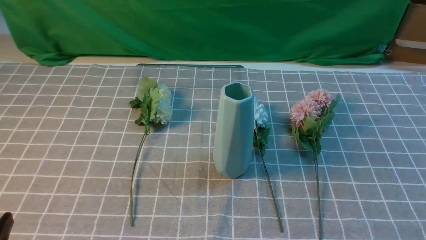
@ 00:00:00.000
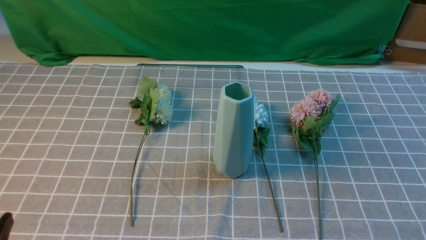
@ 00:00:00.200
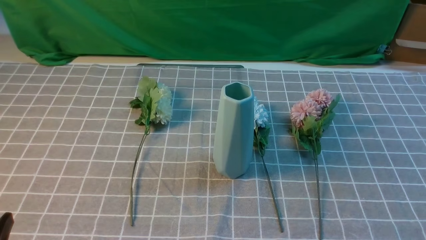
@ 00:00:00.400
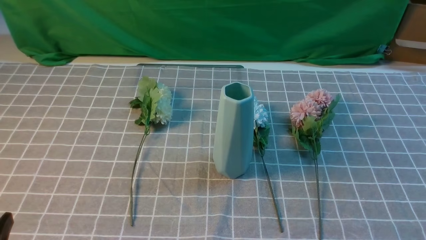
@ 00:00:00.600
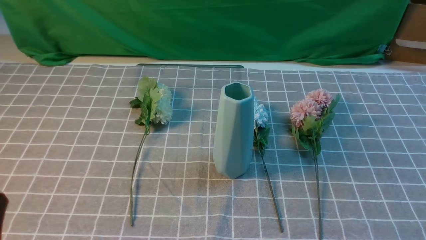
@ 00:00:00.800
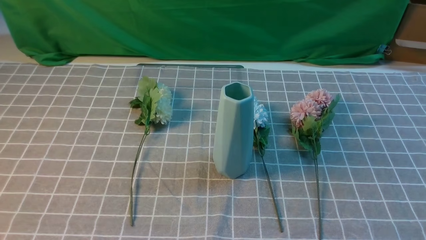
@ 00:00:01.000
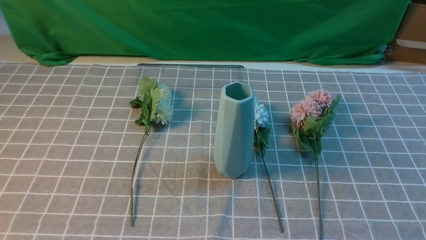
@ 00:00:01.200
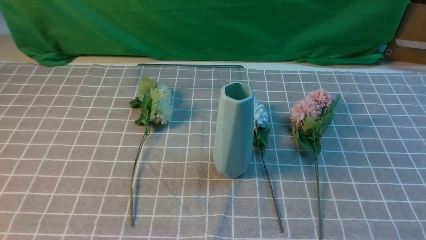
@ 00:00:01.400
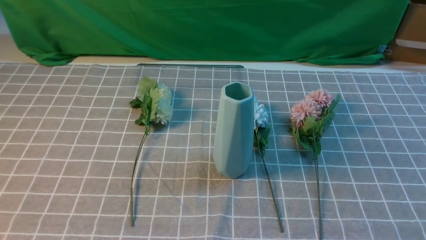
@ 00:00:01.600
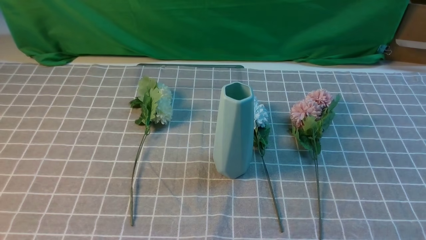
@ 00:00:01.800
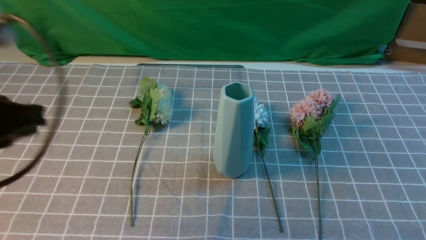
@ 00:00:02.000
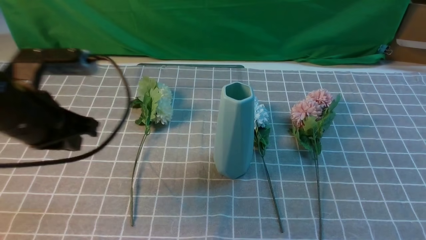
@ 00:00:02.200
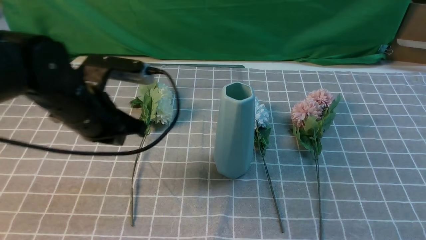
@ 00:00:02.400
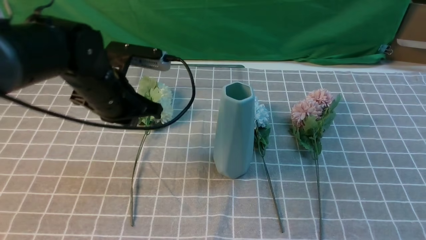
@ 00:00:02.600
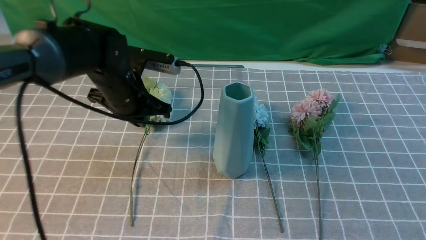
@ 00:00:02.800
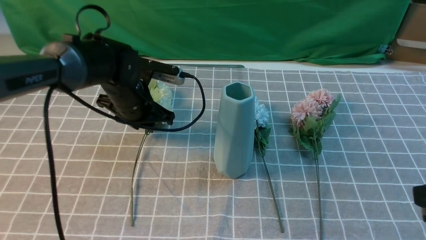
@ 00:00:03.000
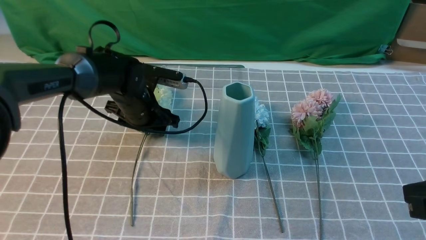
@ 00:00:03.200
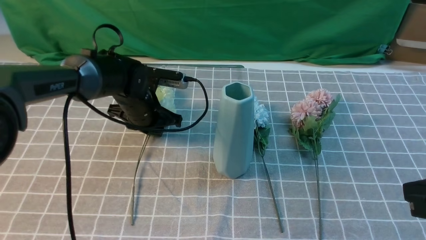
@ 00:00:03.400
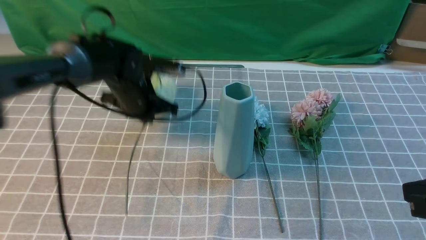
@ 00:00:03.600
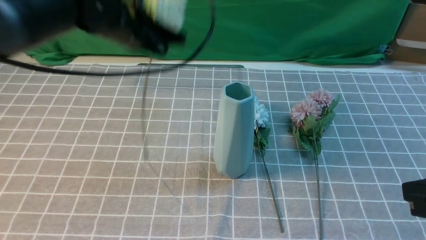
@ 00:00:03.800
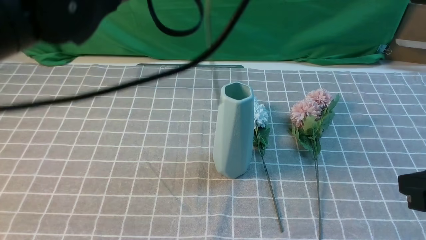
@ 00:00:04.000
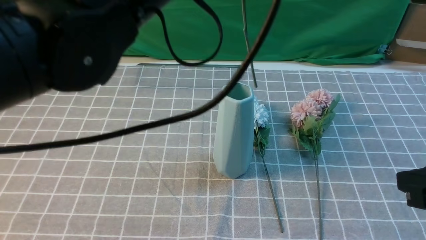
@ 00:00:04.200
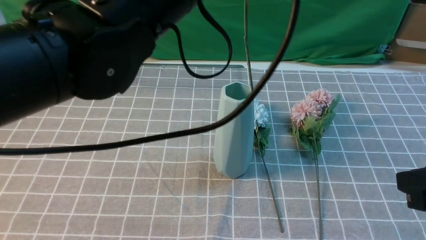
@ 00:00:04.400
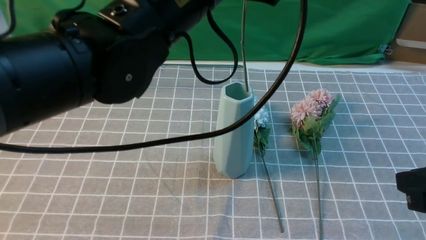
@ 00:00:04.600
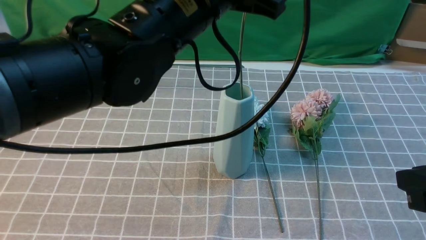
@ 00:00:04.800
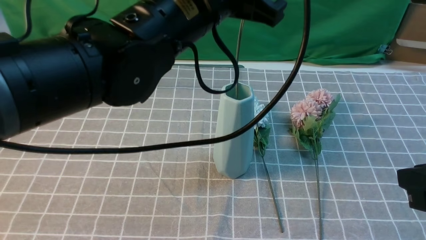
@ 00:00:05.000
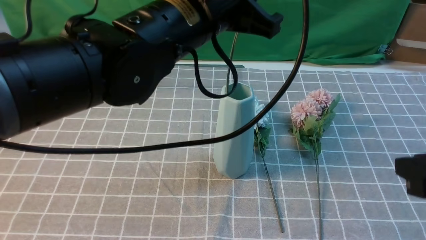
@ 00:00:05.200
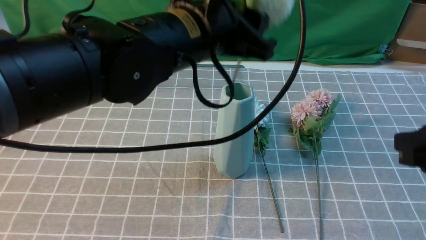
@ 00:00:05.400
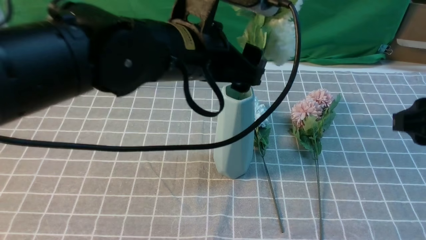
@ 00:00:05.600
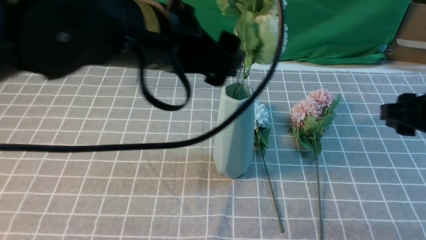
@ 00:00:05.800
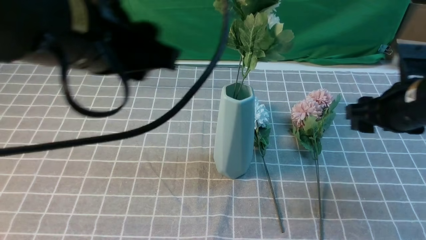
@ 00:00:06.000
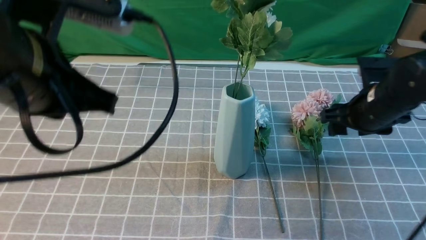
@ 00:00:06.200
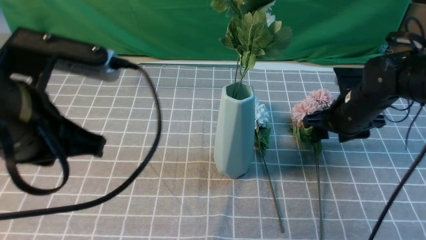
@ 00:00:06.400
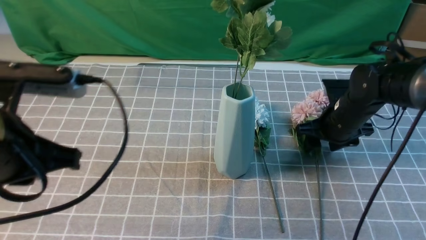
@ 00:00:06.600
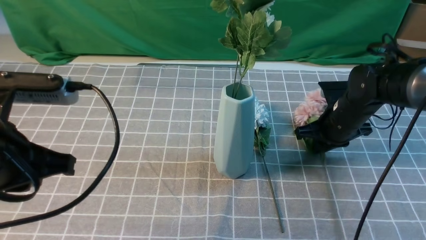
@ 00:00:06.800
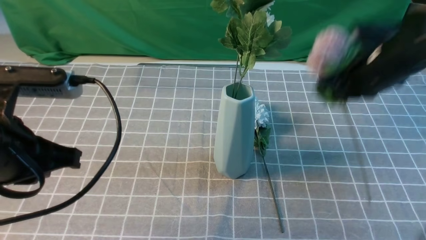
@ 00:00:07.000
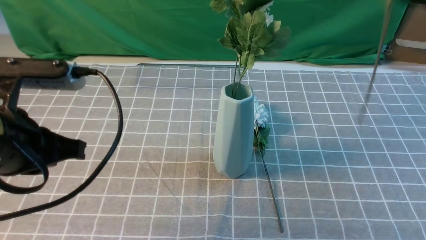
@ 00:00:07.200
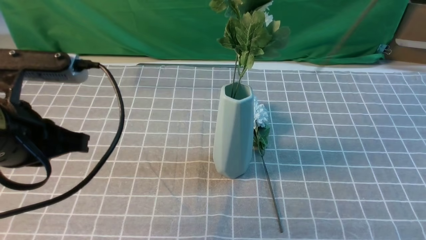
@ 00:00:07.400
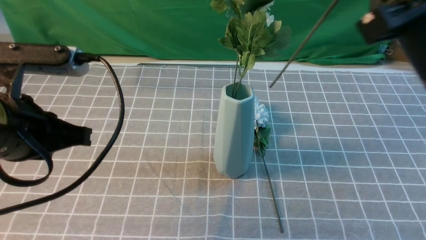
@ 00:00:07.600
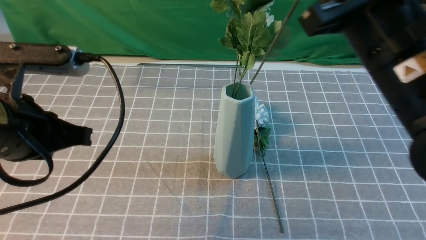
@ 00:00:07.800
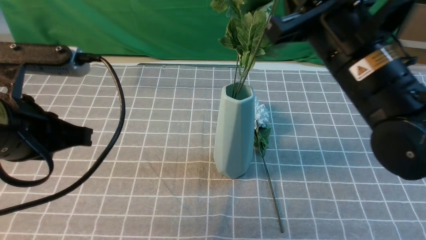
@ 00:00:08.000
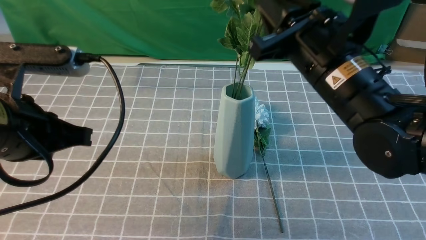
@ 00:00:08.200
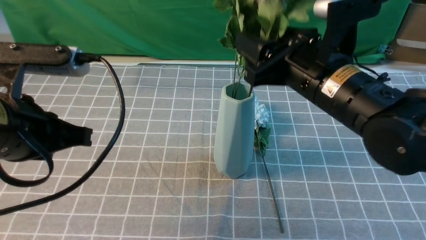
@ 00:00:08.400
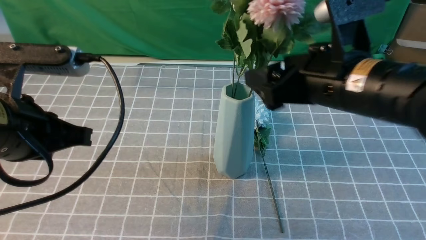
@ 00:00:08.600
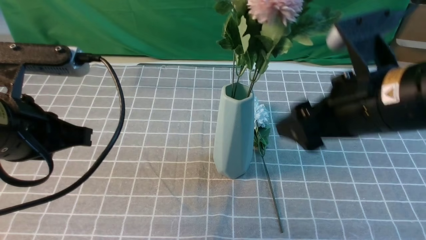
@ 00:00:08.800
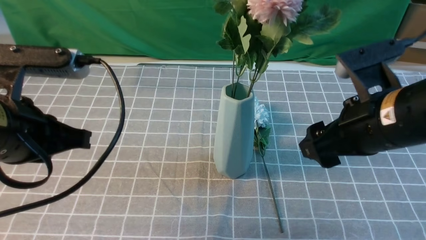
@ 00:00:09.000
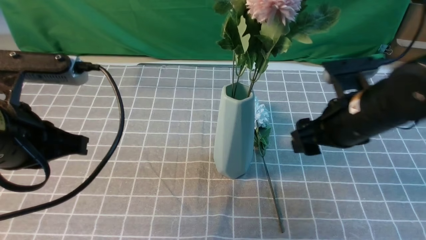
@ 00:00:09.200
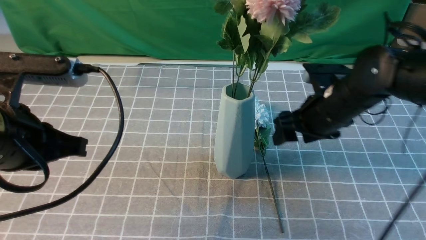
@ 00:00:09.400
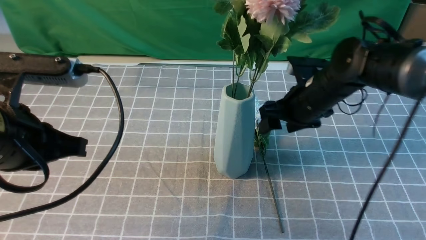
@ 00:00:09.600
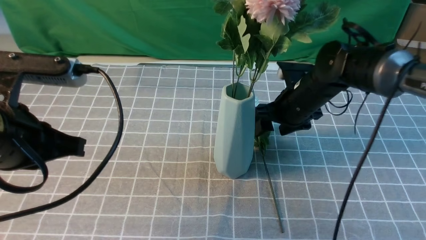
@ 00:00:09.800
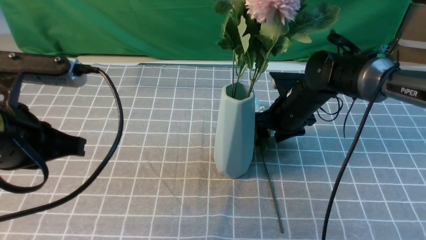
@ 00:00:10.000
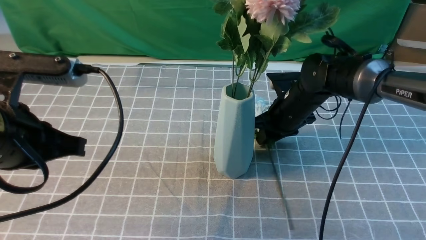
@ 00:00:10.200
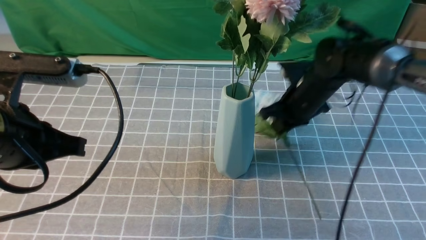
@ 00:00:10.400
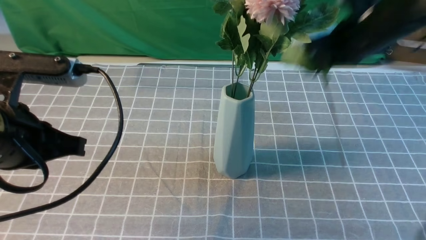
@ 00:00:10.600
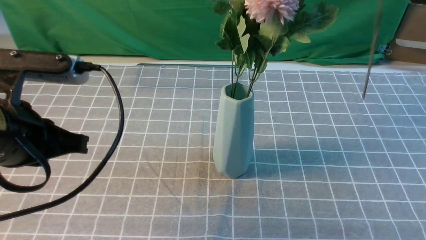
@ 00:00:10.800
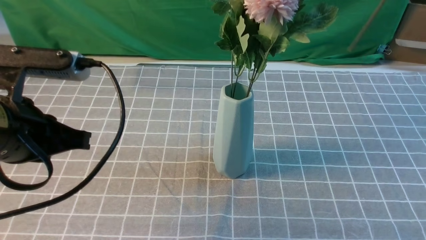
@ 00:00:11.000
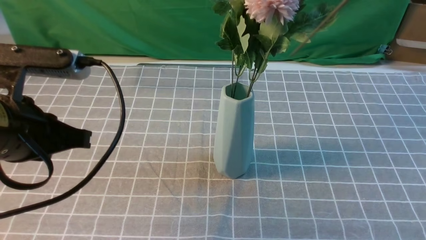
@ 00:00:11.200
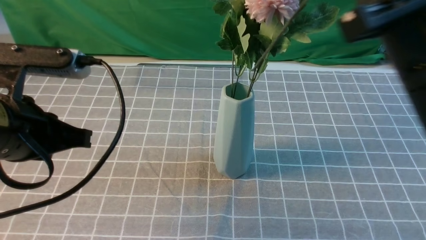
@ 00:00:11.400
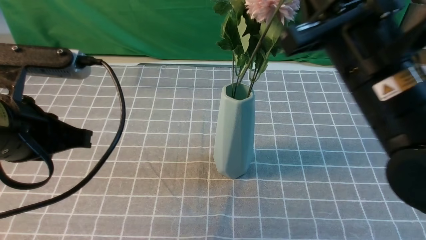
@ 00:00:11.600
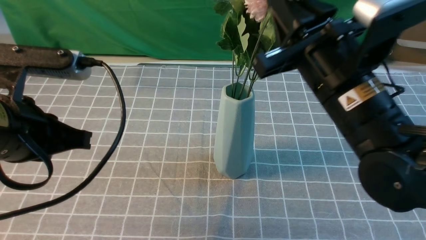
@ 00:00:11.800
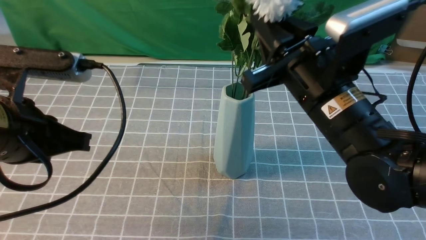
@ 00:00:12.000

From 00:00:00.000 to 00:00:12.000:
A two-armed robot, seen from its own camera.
Task of the whole recording: insert the flowers into the vase on the table with the grey tablecloth.
Step, from 00:00:00.000 to 00:00:03.400: use the left arm to grab a bunch of fresh flowers.
Step, from 00:00:03.600 to 00:00:05.600: use the left arm to insert the flowers into the vase.
Step, from 00:00:05.800 to 00:00:06.600: use the right arm to grab a bunch of fresh flowers.
Step, from 00:00:07.000 to 00:00:08.600: use the right arm to insert the flowers into the vase.
Step, from 00:00:08.800 to 00:00:10.200: use the right arm to grab a bunch of fresh flowers.
From 00:00:01.600 to 00:00:03.000: The right gripper travels upward, forward and to the left by about 15 cm, while the left gripper moves forward and downward, some 35 cm, and opens up.
From 00:00:03.000 to 00:00:04.400: The left gripper heads upward and backward, covering some 25 cm, and closes its fingers.
From 00:00:04.400 to 00:00:06.000: The left gripper is displaced to the left and backward by roughly 10 cm, and opens. Meanwhile the right gripper moves forward, approximately 20 cm, and opens up.
From 00:00:06.000 to 00:00:07.600: The left gripper goes approximately 10 cm to the left and downward, and closes its fingers, while the right gripper moves upward, backward and to the left, roughly 20 cm, and closes its fingers.
From 00:00:07.600 to 00:00:09.000: The right gripper goes some 10 cm downward, and opens up.
From 00:00:09.000 to 00:00:10.400: The right gripper shifts some 15 cm forward, and closes its fingers.
From 00:00:10.400 to 00:00:12.000: The right gripper moves backward and upward, approximately 20 cm.

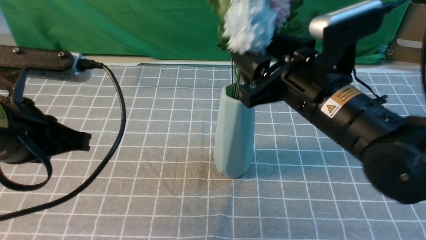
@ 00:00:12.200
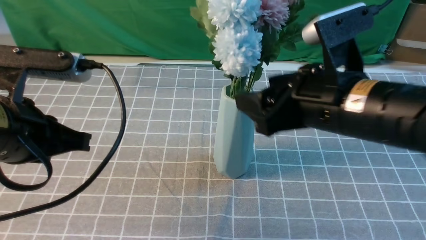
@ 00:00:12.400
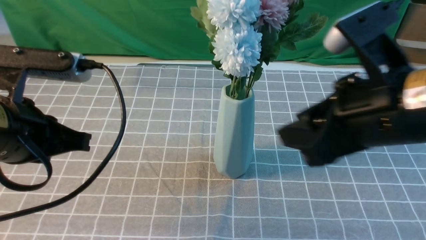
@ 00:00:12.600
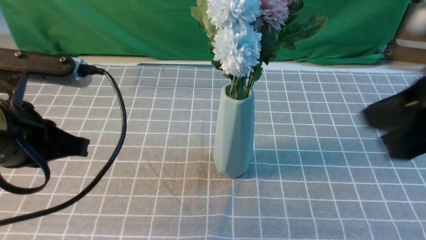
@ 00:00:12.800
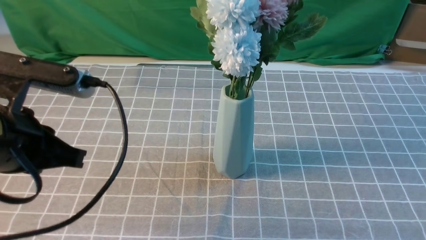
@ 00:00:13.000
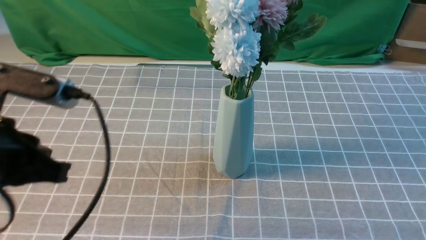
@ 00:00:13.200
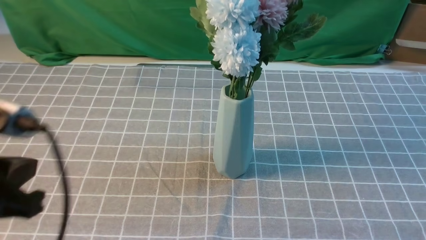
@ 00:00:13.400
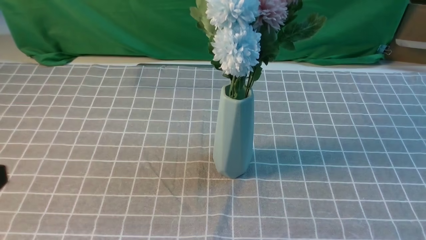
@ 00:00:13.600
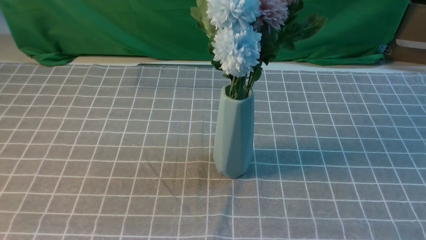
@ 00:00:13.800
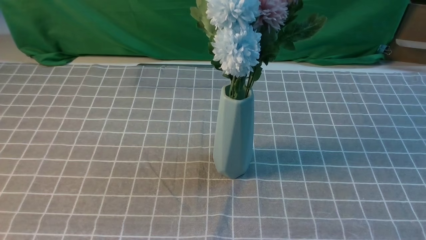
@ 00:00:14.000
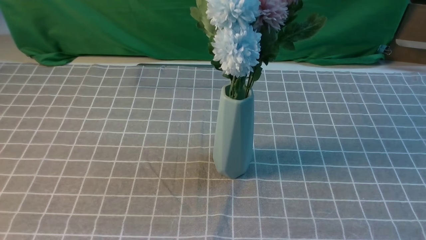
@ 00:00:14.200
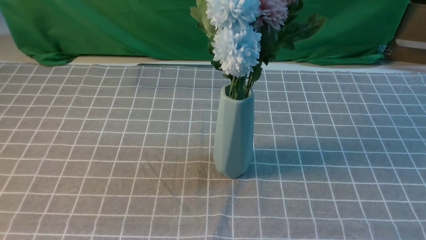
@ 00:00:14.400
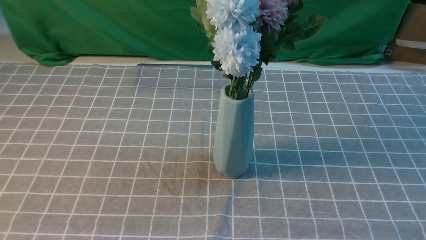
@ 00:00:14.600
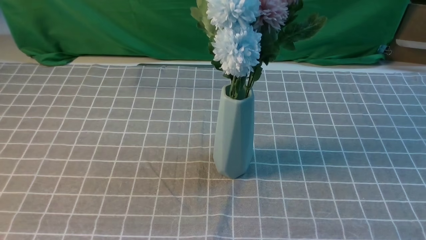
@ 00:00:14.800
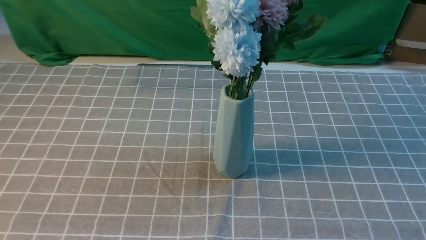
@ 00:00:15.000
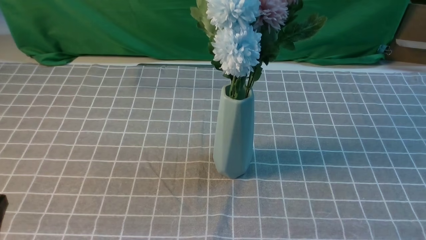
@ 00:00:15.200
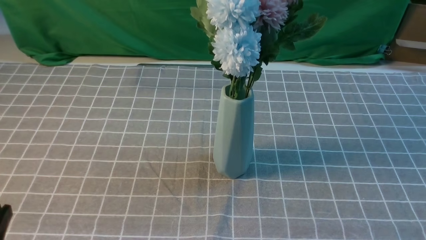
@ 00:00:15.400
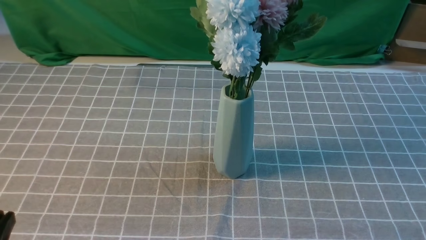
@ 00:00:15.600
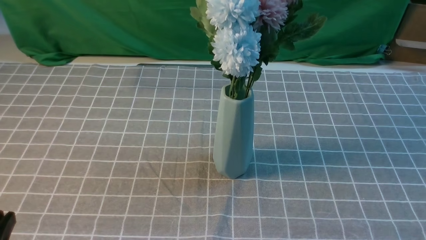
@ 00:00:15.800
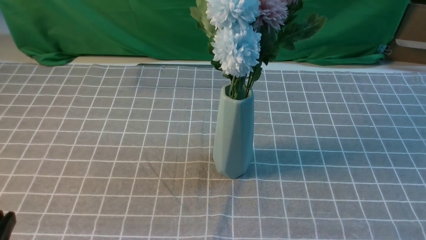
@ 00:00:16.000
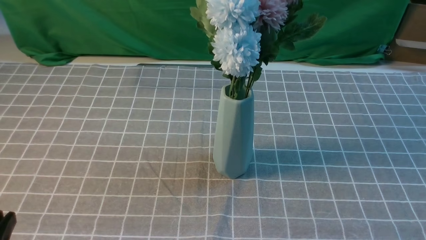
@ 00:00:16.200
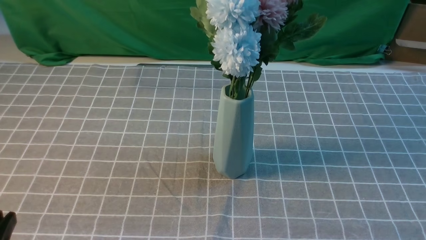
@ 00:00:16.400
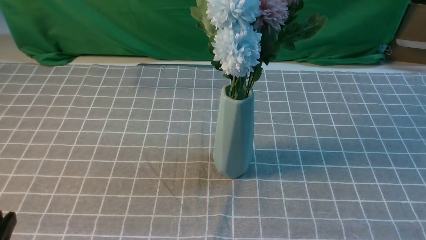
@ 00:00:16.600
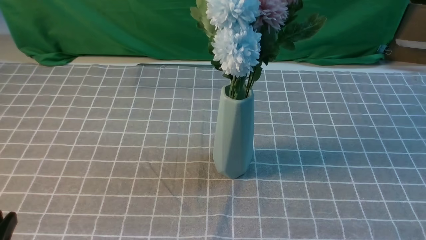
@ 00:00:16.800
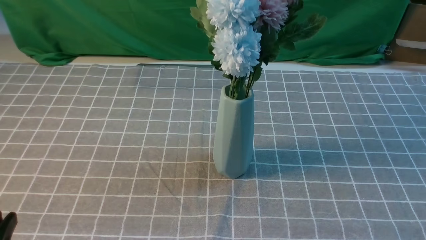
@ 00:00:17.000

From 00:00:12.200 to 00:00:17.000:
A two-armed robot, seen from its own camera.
Task of the whole recording: insert the flowers into the vase on the table with the grey tablecloth.
From 00:00:12.200 to 00:00:13.800: The left gripper heads backward, covering roughly 15 cm. The right gripper is displaced backward and to the right by some 30 cm, and closes its fingers.
